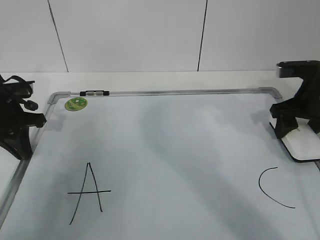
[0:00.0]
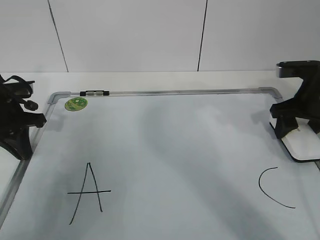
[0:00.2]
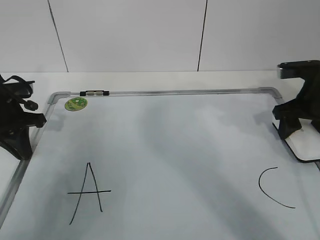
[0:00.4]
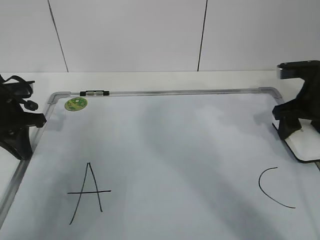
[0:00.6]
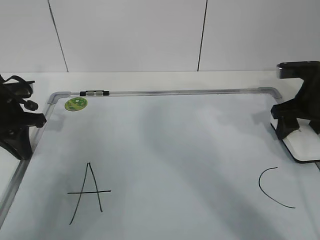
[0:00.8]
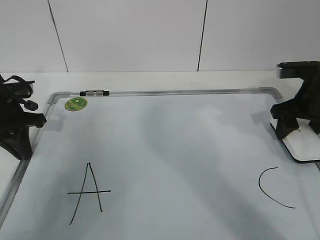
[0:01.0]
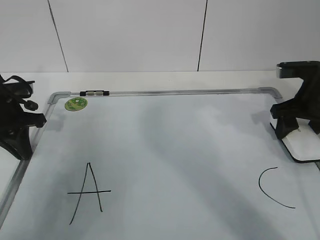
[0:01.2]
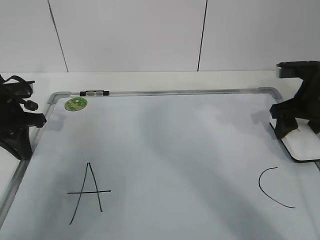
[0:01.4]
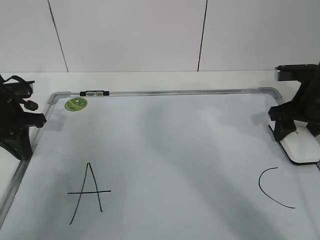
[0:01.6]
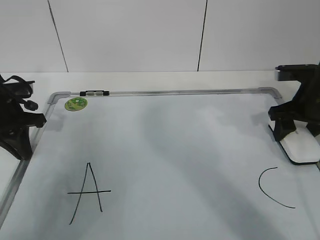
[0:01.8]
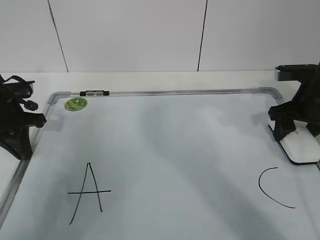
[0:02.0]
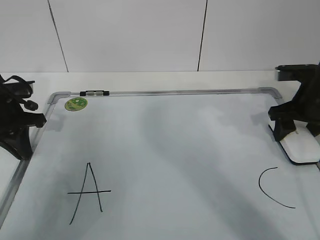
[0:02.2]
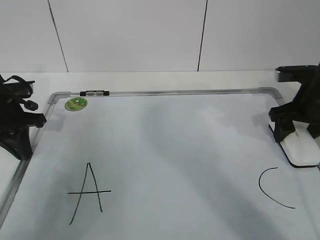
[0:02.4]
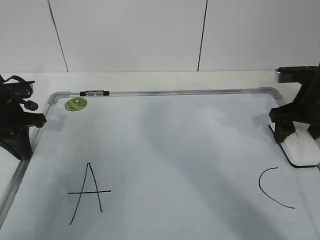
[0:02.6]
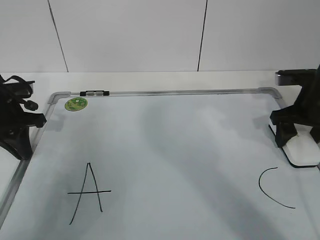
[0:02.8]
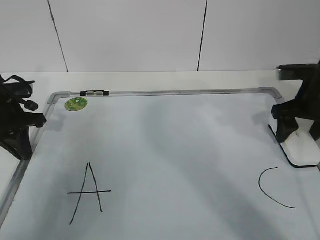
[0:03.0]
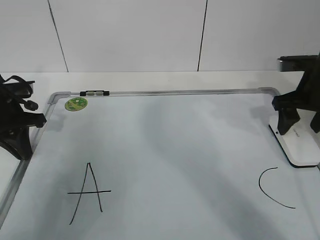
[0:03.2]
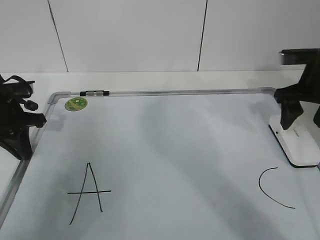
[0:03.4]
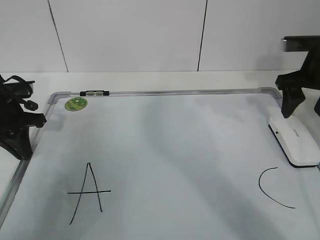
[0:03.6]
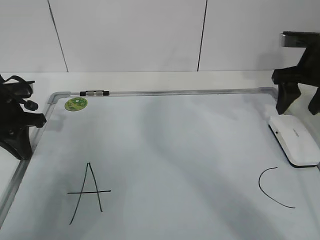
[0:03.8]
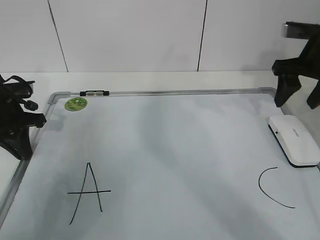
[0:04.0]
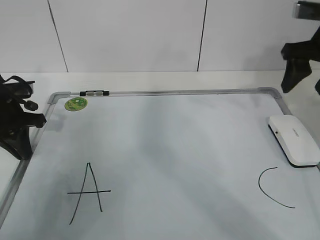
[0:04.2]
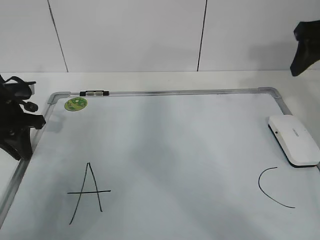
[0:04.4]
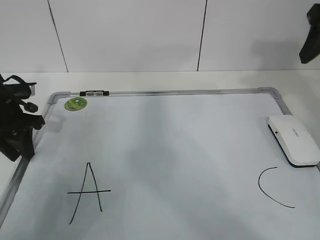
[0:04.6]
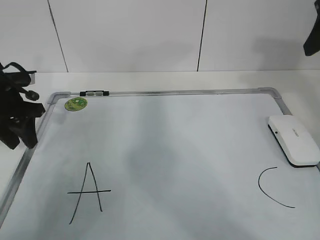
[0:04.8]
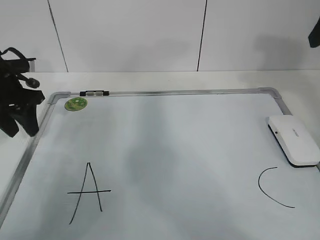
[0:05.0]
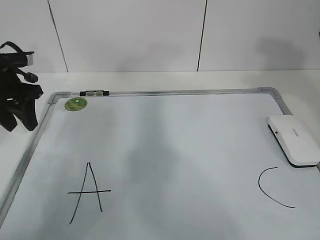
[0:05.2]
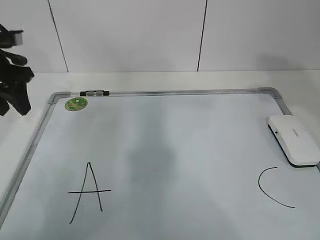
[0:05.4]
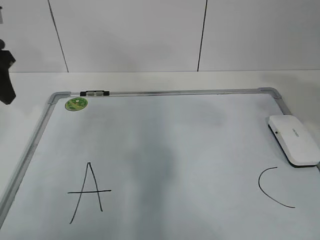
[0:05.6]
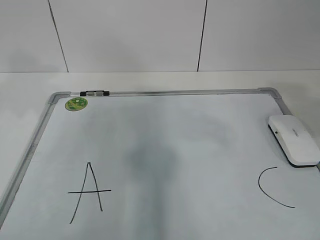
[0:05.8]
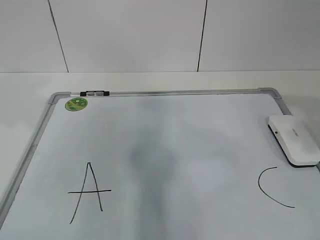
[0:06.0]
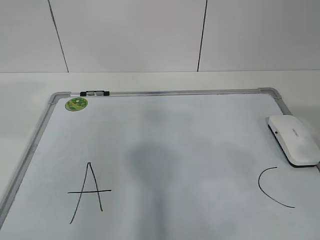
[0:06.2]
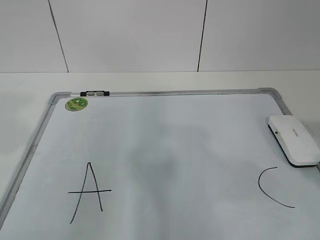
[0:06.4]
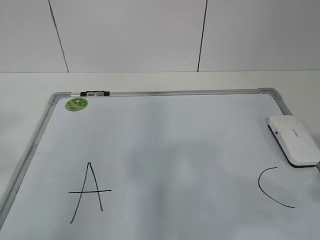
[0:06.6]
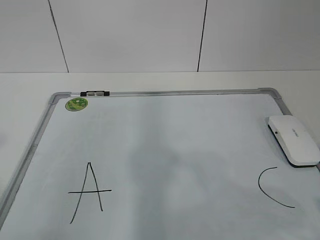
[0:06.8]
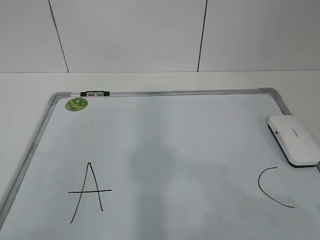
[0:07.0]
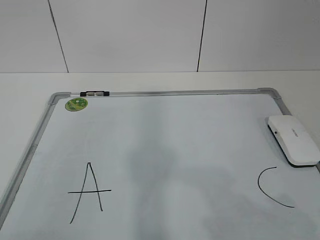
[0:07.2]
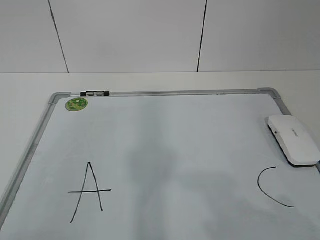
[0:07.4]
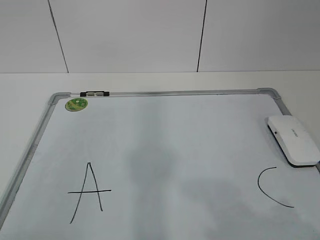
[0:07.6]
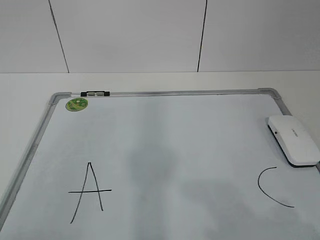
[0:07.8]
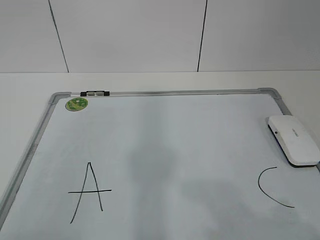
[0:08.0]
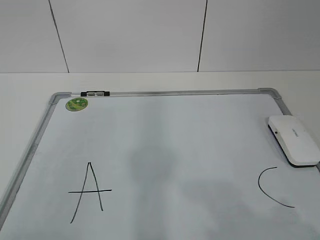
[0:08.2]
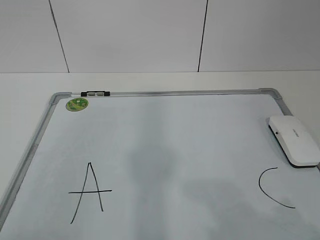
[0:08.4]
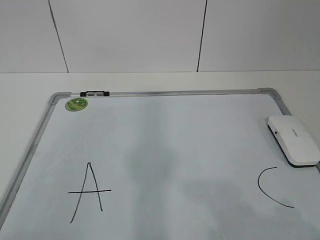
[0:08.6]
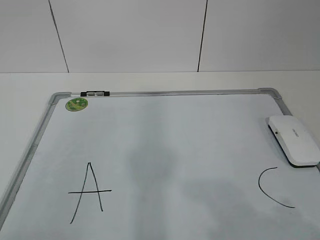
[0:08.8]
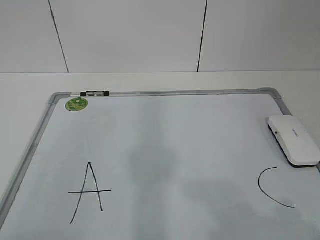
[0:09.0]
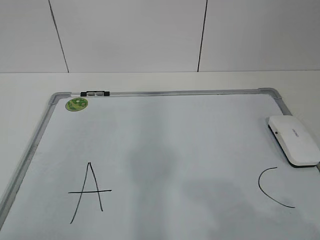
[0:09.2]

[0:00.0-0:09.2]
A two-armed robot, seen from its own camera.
Task of the whole recording: pick up the eraser on the blackboard and erase the letter "B".
0:00.0 to 0:01.6: Both grippers stay about where they are.
0:01.6 to 0:03.0: The right gripper opens its fingers.
0:03.0 to 0:04.6: The right gripper moves upward, about 15 cm, and closes. Meanwhile the left gripper opens its fingers.
0:04.6 to 0:06.2: The right gripper is displaced backward by some 25 cm; the left gripper goes roughly 25 cm upward and backward.
0:06.2 to 0:07.6: The right gripper moves downward and backward, about 15 cm.
0:07.6 to 0:09.2: Neither gripper changes place.

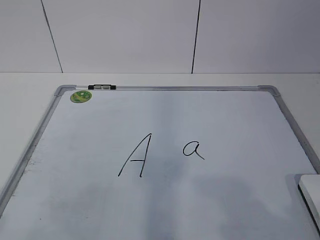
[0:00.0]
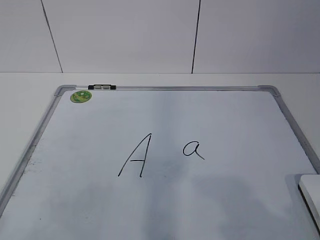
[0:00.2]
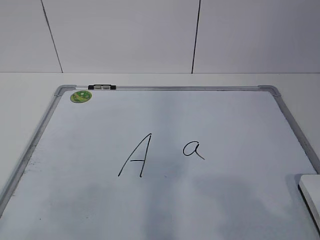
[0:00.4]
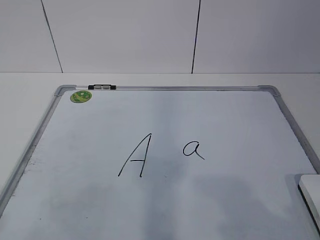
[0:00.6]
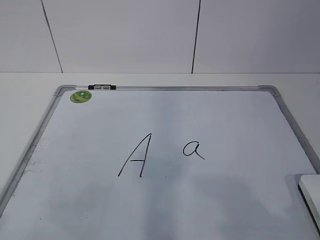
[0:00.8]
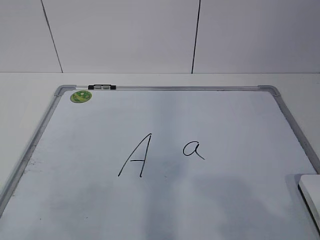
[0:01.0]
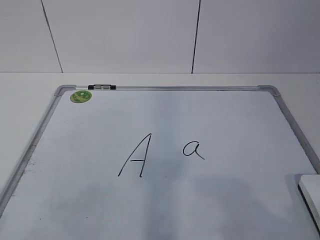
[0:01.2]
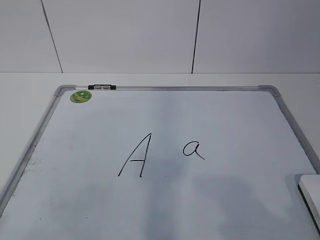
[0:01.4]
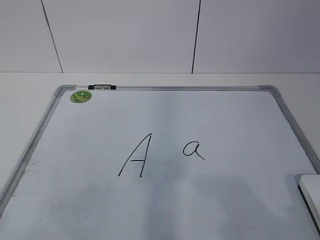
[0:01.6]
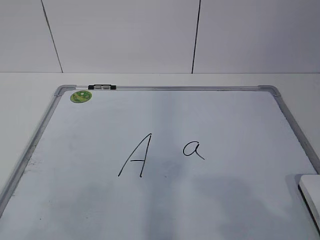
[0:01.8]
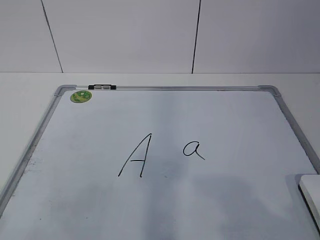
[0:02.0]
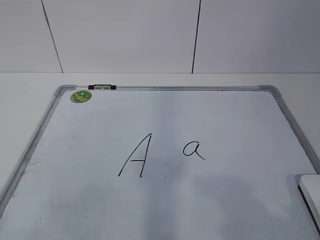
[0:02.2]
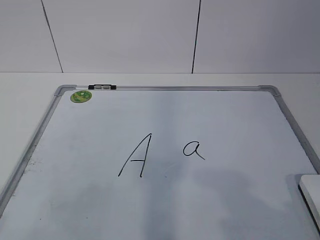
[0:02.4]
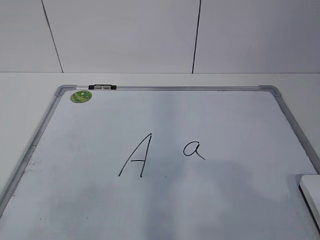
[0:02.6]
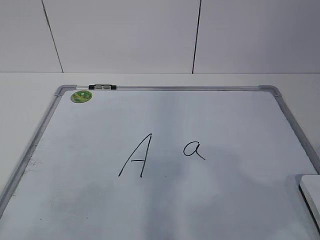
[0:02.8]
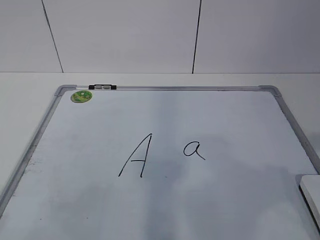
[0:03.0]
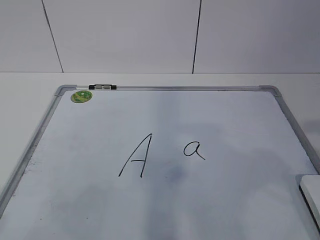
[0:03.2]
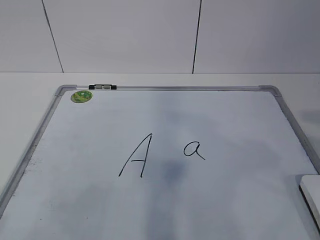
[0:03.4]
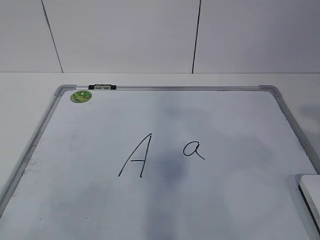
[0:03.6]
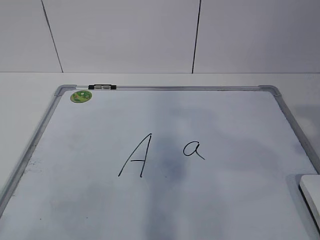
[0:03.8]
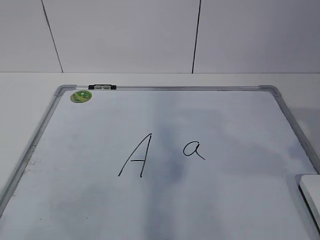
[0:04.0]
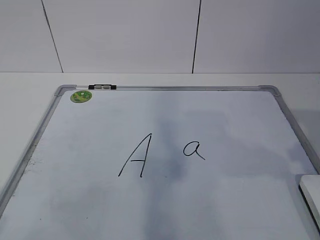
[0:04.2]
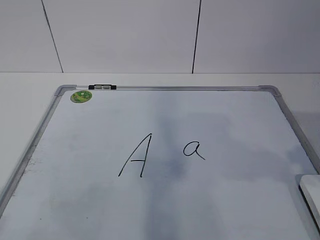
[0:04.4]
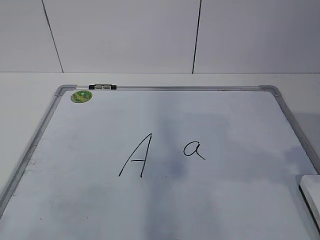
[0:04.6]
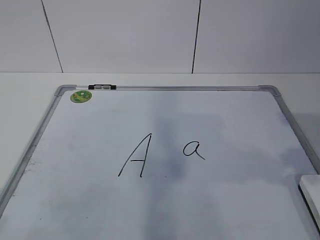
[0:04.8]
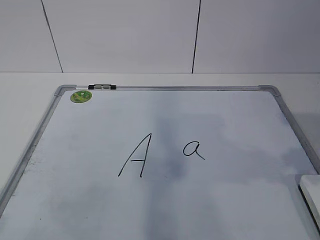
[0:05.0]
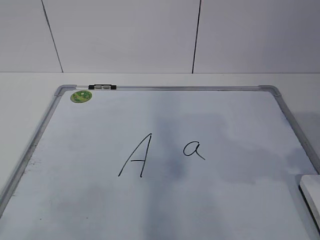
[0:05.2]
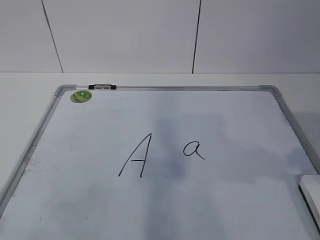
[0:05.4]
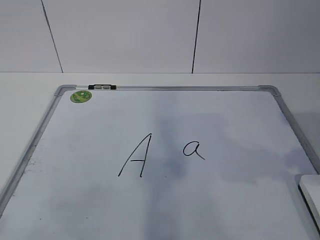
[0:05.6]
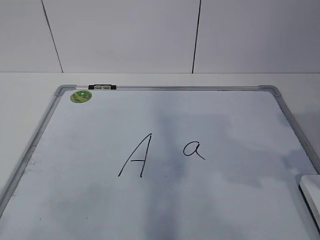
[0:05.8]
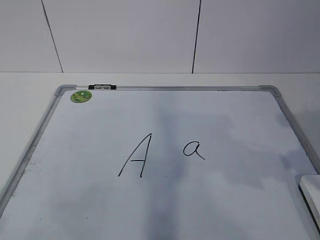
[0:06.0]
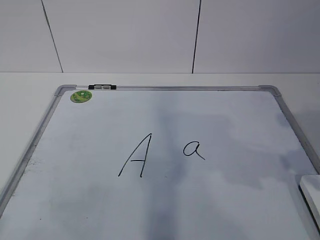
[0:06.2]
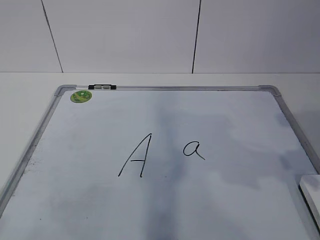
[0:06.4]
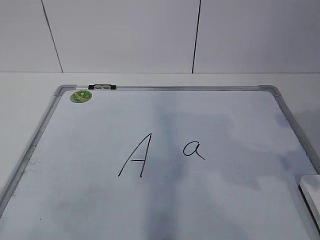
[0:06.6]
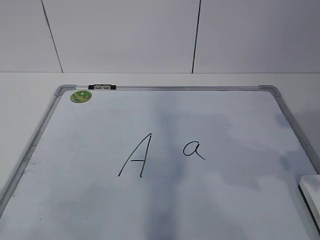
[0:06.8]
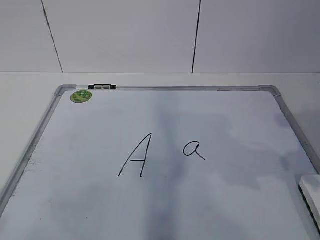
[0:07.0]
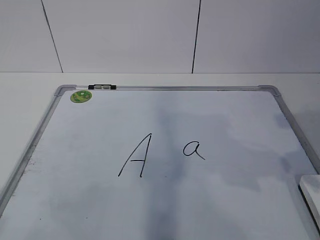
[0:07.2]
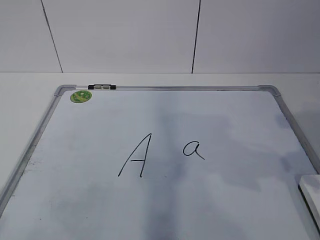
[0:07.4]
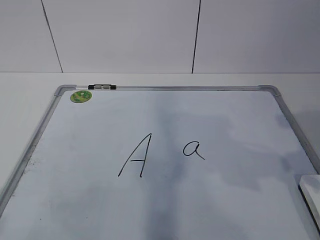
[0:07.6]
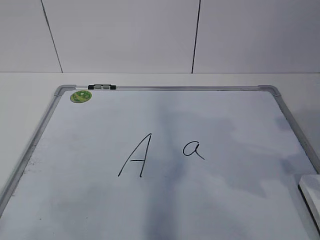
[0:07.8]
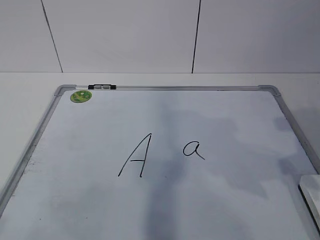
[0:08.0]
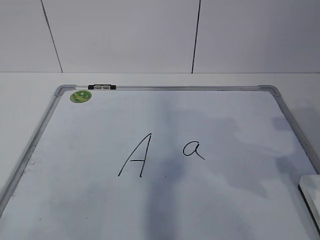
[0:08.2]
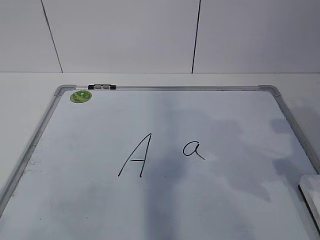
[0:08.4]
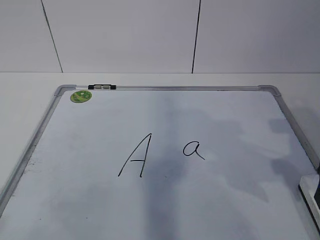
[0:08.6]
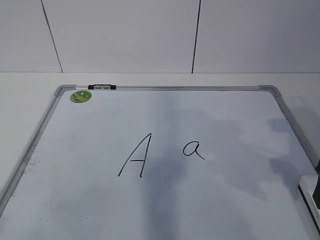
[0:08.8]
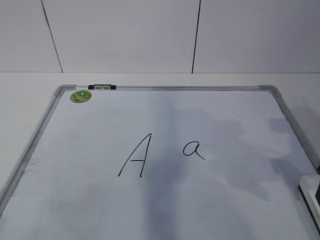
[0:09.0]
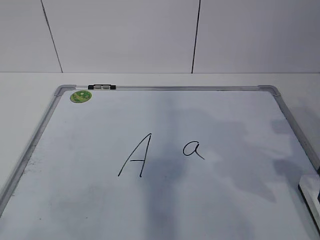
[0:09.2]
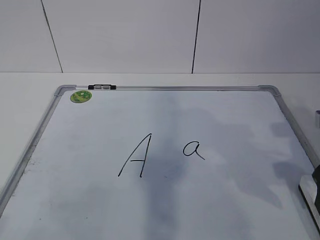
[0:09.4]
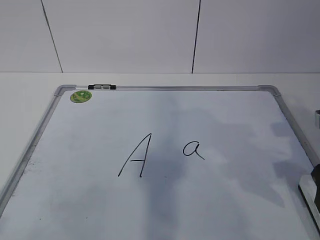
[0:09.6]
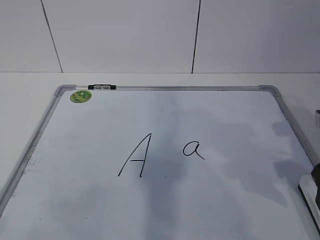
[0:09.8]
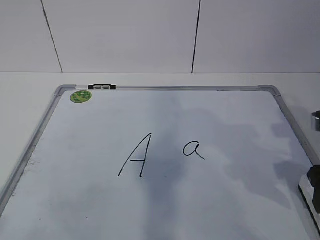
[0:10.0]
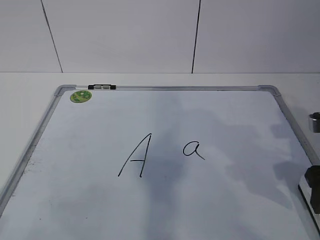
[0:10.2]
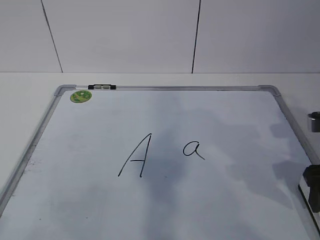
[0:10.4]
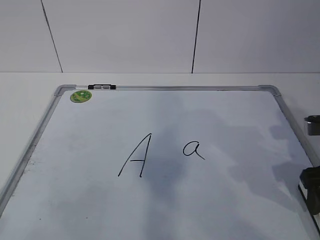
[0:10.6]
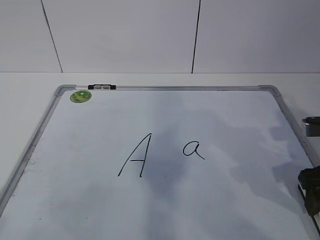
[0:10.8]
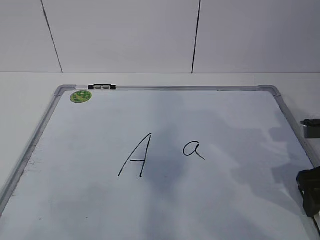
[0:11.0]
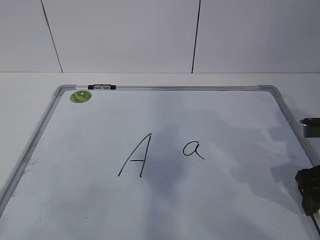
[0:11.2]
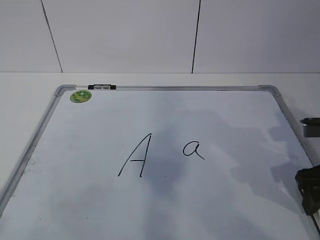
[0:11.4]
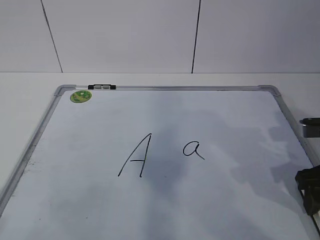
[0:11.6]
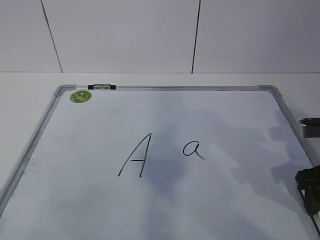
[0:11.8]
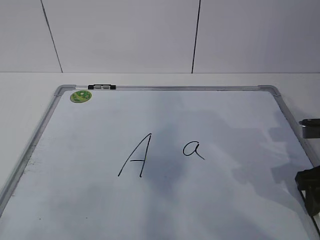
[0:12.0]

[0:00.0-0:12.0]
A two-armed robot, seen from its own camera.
Task of the whole recording: pick up the eraser on the blackboard and erase the letter "a".
0:09.0 to 0:10.4: The grippers stay close to where they were, moving slightly.
0:10.4 to 0:12.0: The right gripper closes its fingers.

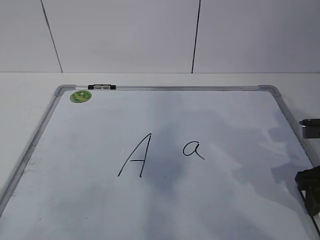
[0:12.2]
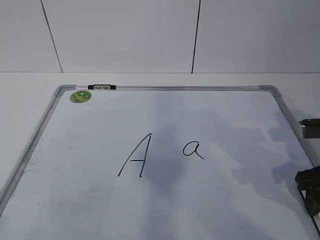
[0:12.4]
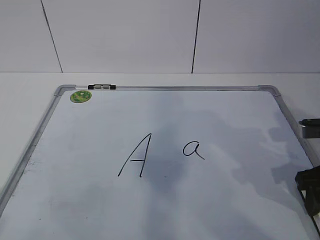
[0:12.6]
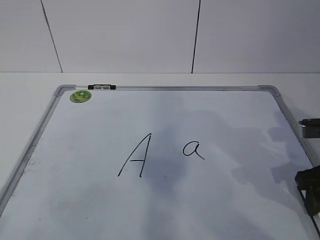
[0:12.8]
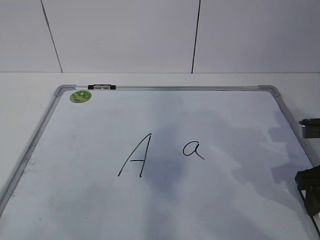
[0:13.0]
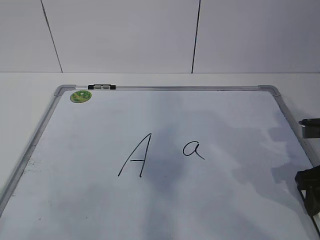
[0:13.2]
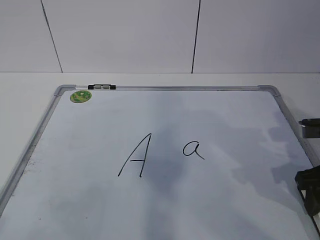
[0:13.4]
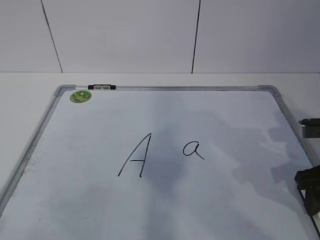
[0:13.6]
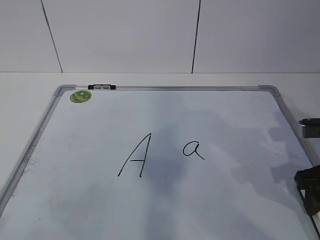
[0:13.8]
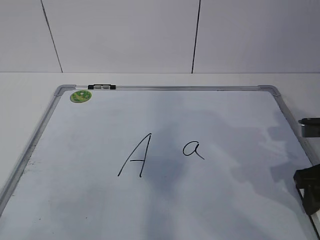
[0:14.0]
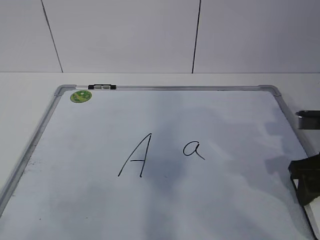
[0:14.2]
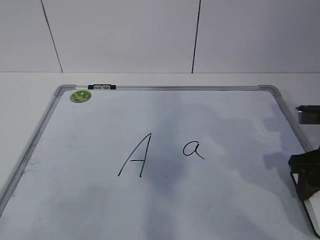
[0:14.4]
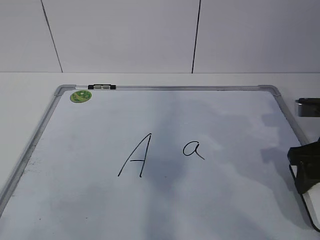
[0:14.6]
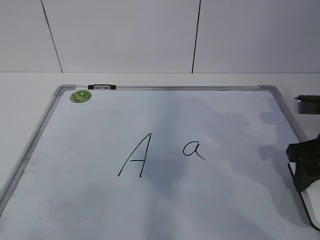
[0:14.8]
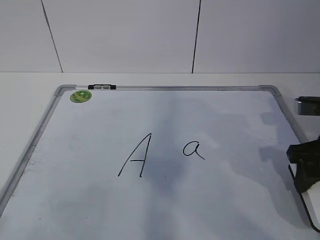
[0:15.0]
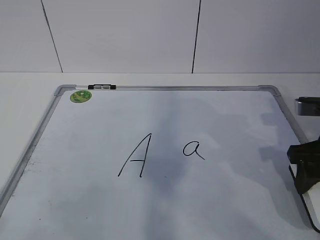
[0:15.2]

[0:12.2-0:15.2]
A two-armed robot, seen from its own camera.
Task of the whole recording: pick up the eraser on the blackboard and erase the letter "a".
0:12.2 to 0:13.8: Neither gripper changes place.
0:13.8 to 0:15.2: The grippers move only a little.
